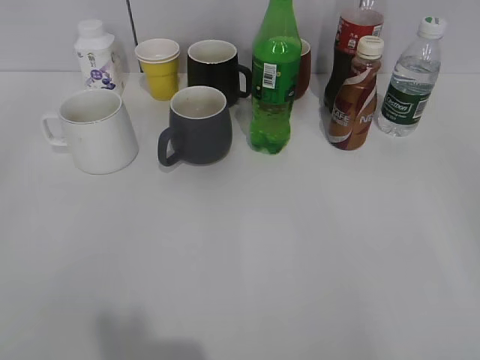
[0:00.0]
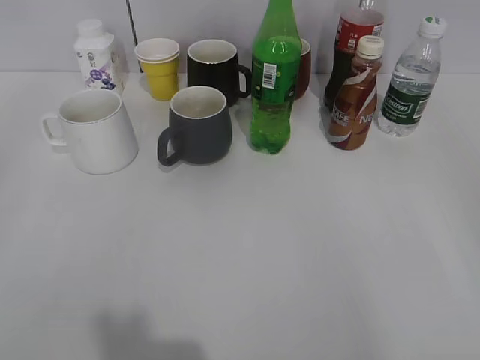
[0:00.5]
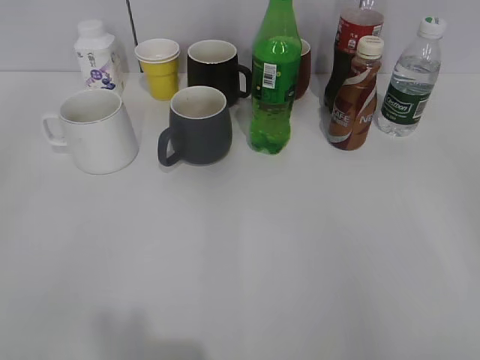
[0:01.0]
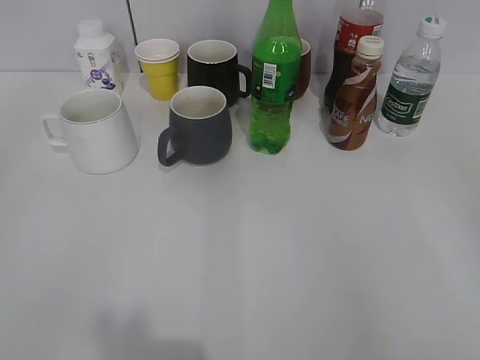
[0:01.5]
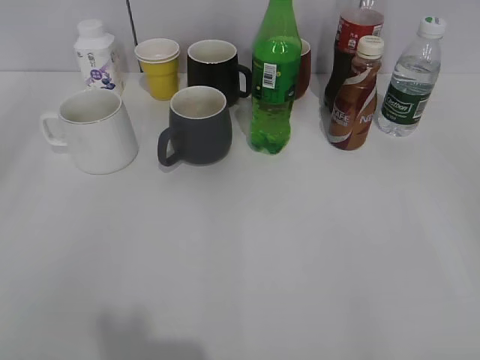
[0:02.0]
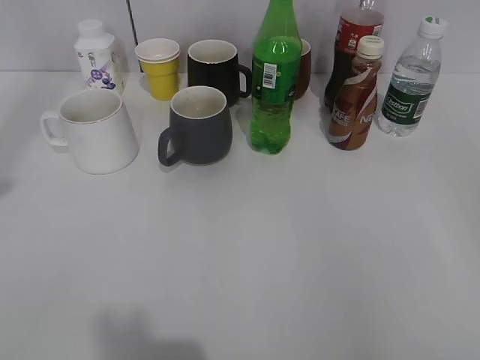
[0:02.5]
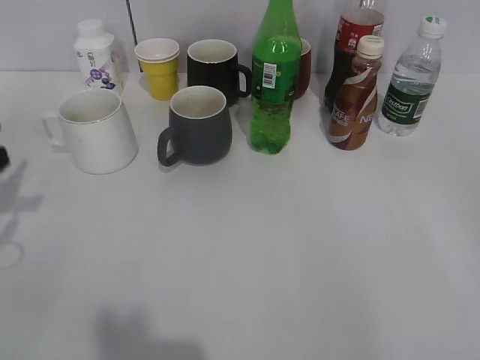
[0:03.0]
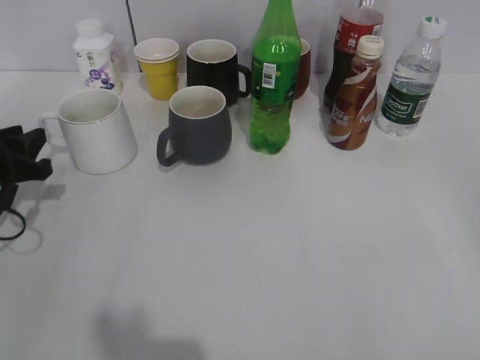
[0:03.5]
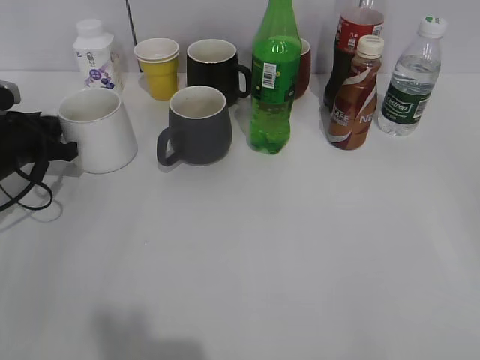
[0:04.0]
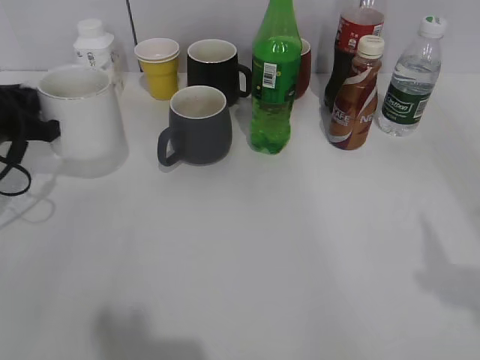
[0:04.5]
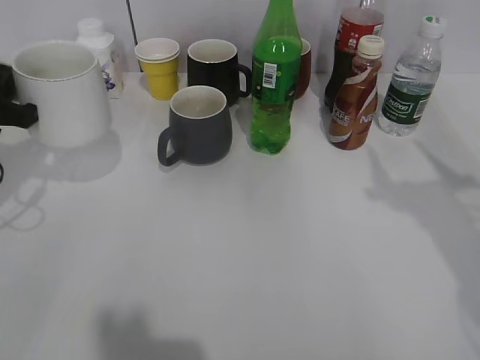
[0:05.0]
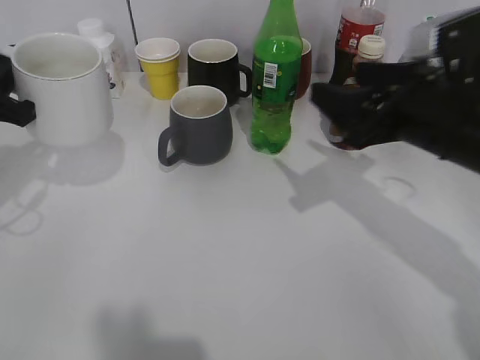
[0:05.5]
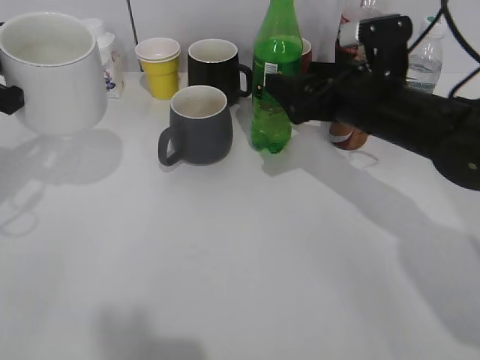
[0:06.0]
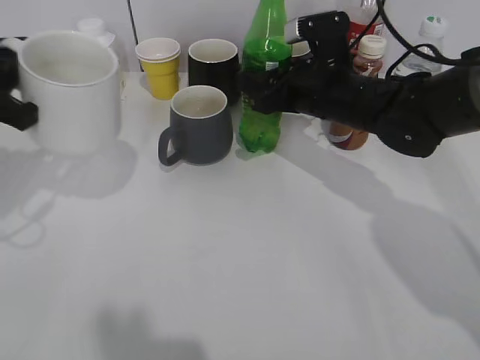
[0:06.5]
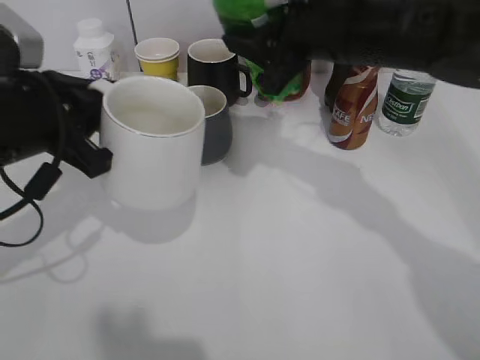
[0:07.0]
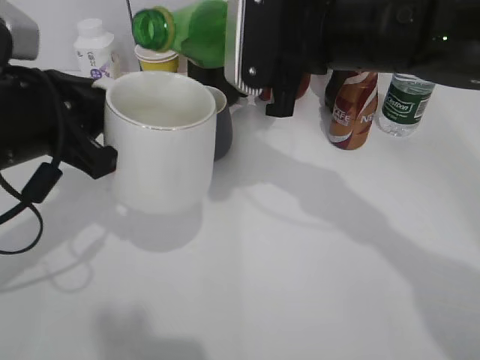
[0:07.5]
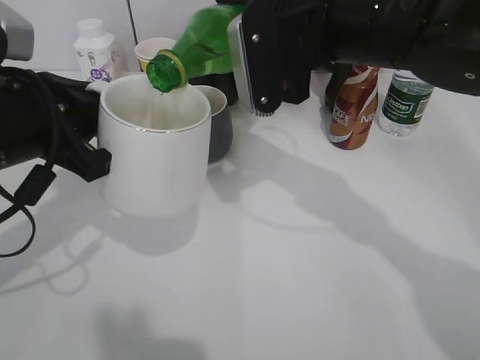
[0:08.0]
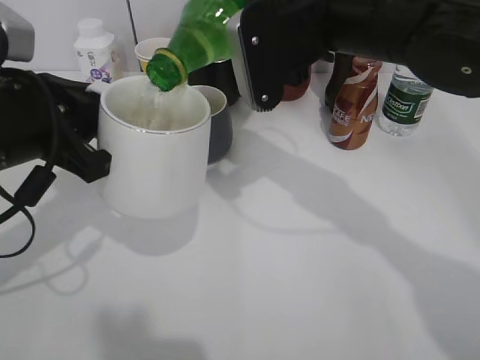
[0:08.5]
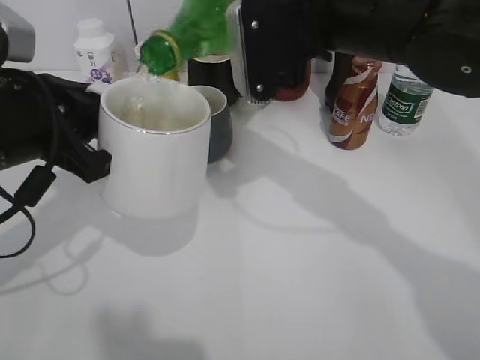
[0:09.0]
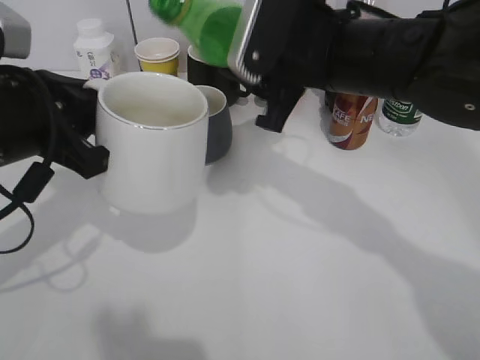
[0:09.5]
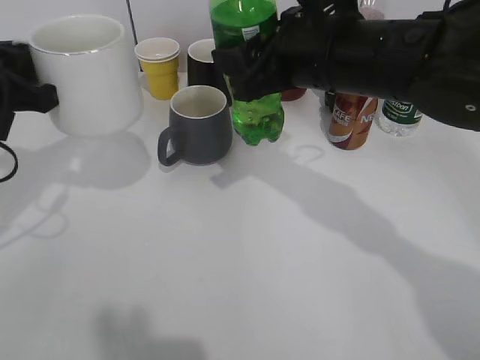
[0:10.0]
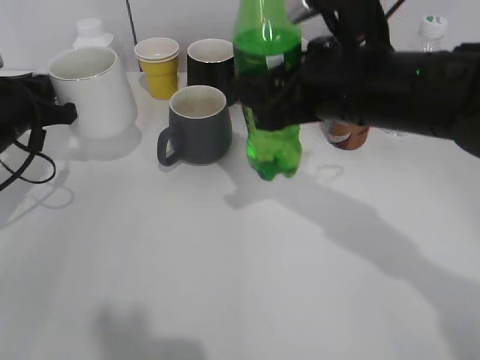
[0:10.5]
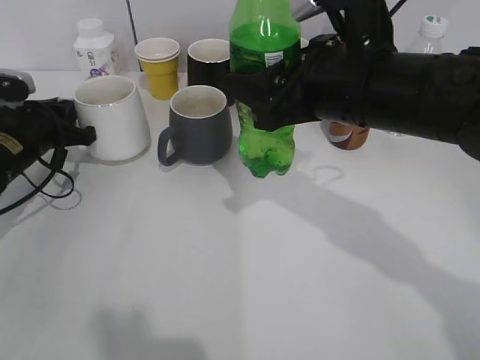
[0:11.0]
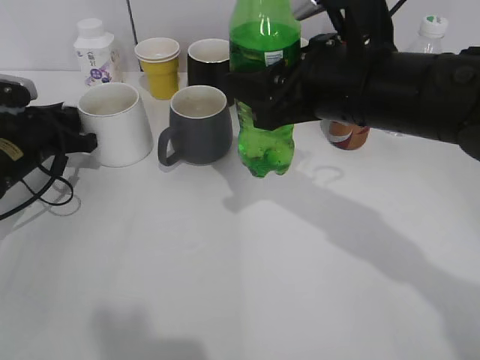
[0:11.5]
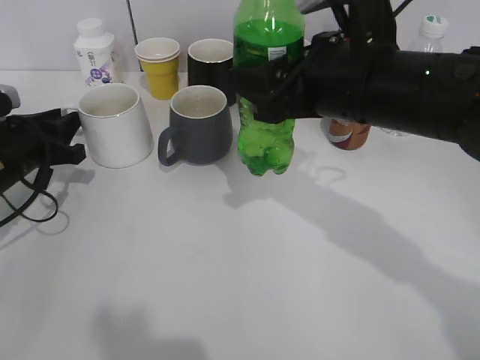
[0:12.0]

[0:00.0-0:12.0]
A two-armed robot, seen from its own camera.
Step, 0:02.0 to 0:04.0: Grasp the white cup with left gripper.
Step, 0:04.5 to 0:05.0: Lift the white cup with left gripper.
Step, 0:05.5 to 0:06.0: Grasp the bottle with sprite with right gripper.
Step, 0:07.0 to 0:09.0: Pour the sprite from bottle to cup with right gripper.
Step, 0:10.0 to 0:12.0: Place the white cup on the table with left gripper.
0:02.0 to 0:04.0: The left gripper shifts some 40 cm forward and downward.
0:04.0 to 0:06.0: The left gripper shifts approximately 15 cm upward and backward; the right gripper heads forward and to the left, covering roughly 35 cm.
0:06.0 to 0:08.0: The left gripper is displaced to the right and backward by about 10 cm; the right gripper goes approximately 10 cm upward and to the left, and closes.
0:08.0 to 0:10.0: The left gripper goes approximately 10 cm to the left and forward.
0:10.0 to 0:12.0: The left gripper moves downward and forward, approximately 15 cm, and opens.

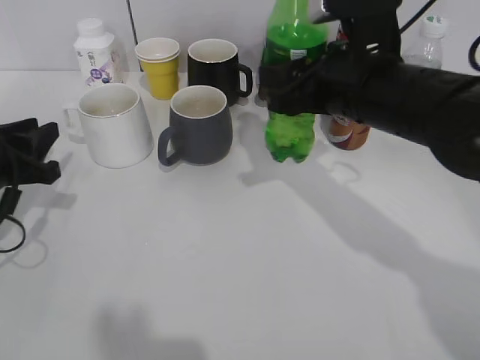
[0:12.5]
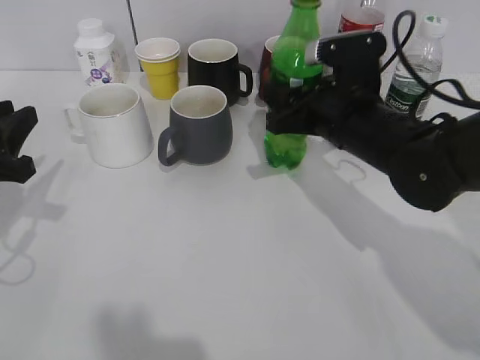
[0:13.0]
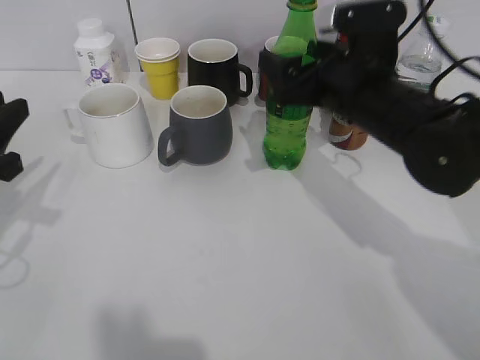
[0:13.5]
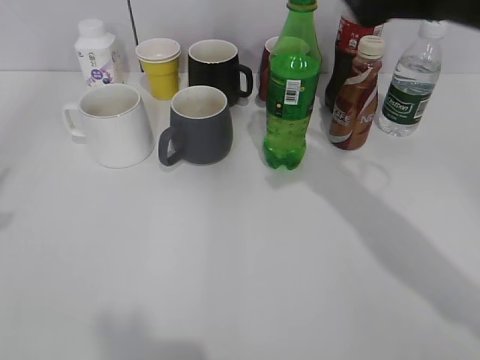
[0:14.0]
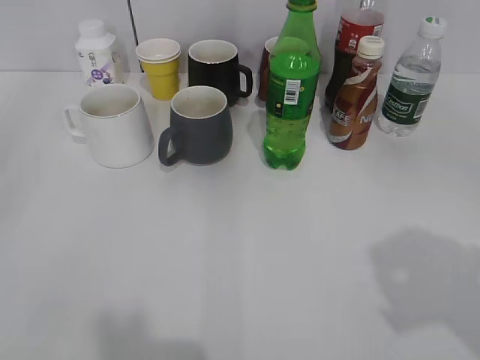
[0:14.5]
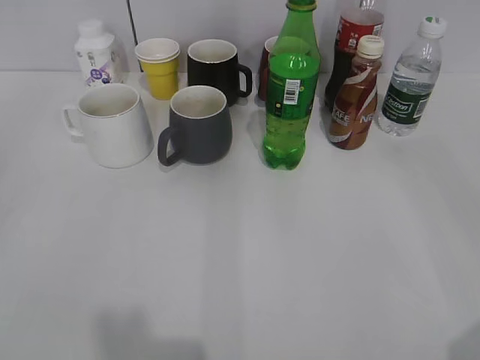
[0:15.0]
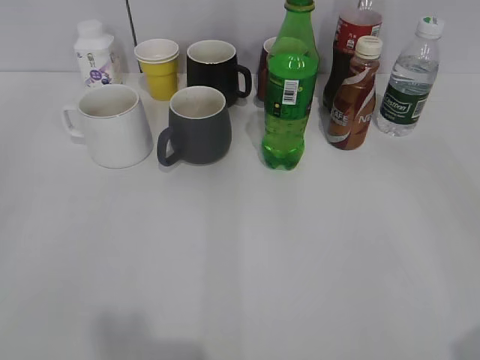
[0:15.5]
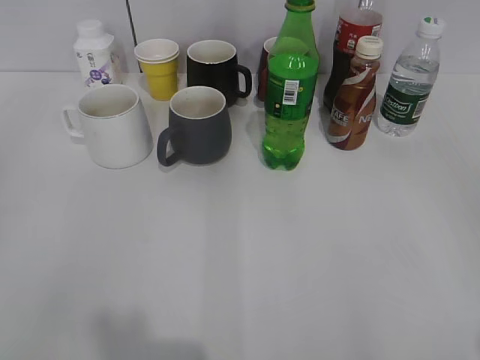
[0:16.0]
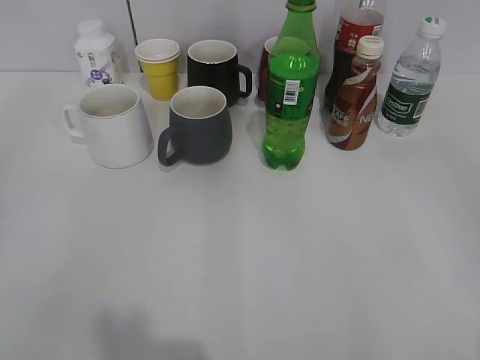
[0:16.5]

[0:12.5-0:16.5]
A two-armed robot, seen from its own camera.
Step, 0:12.5 to 0:13.5: Place the sprite bottle on the table with right gripper.
0:12.5 to 0:14.5: The left gripper moves backward and upward, approximately 30 cm, and opens its fingers; the right gripper moves backward, to the right and upward, about 25 cm, and opens its fingers.

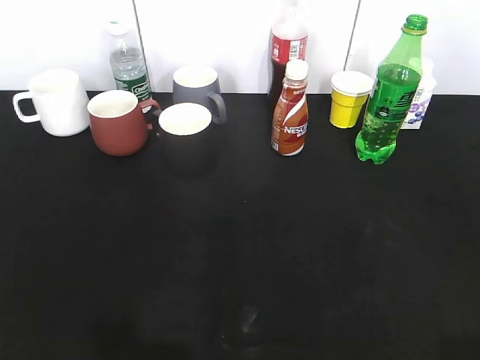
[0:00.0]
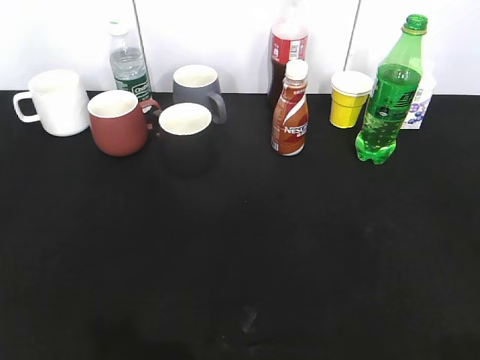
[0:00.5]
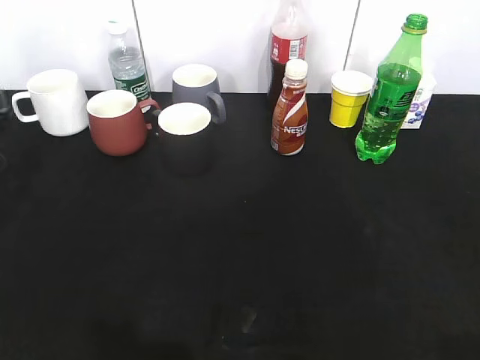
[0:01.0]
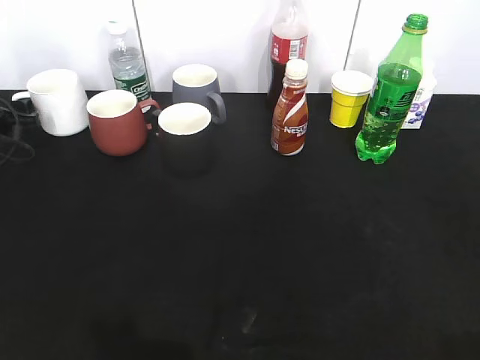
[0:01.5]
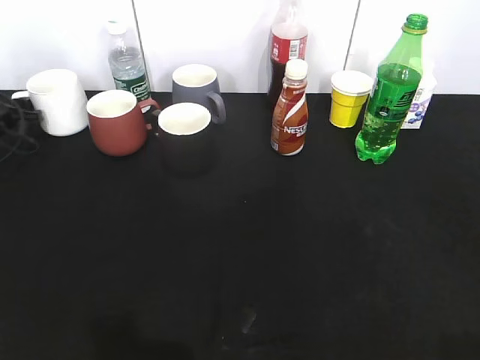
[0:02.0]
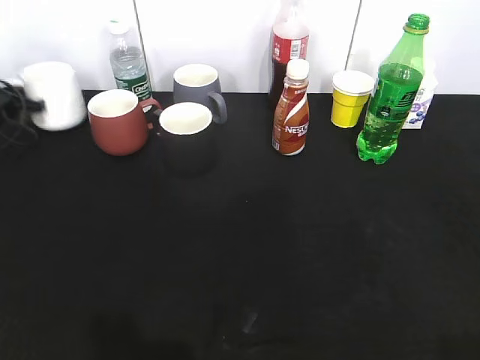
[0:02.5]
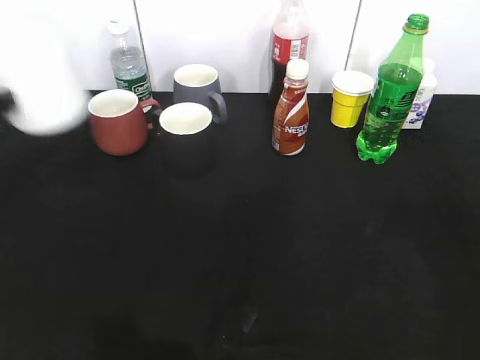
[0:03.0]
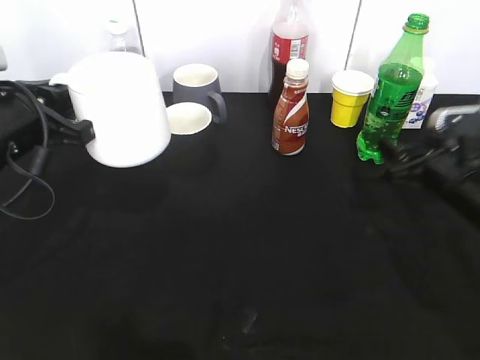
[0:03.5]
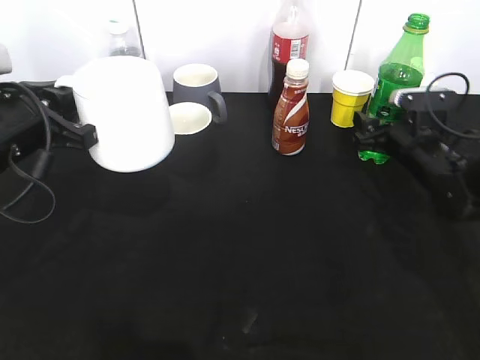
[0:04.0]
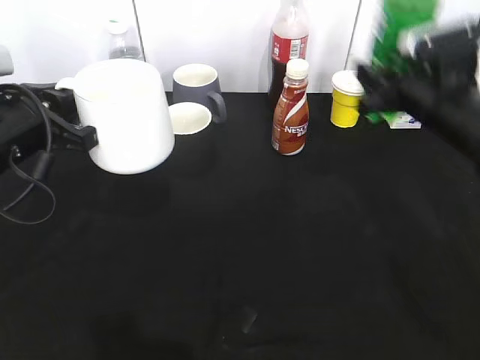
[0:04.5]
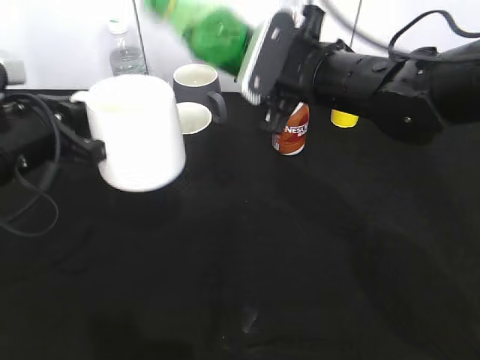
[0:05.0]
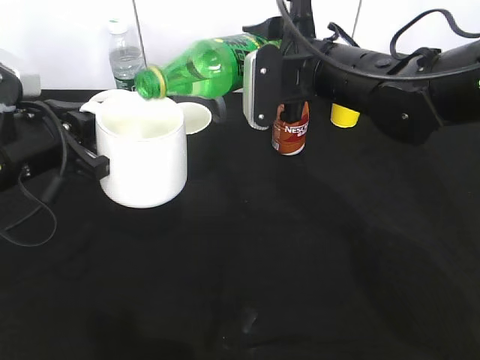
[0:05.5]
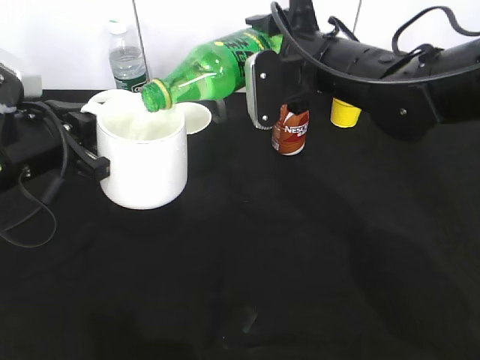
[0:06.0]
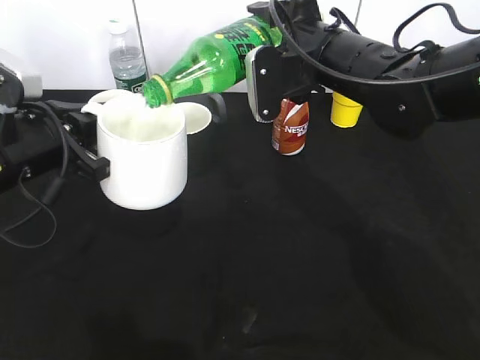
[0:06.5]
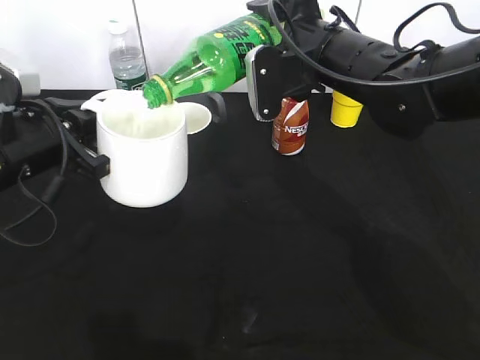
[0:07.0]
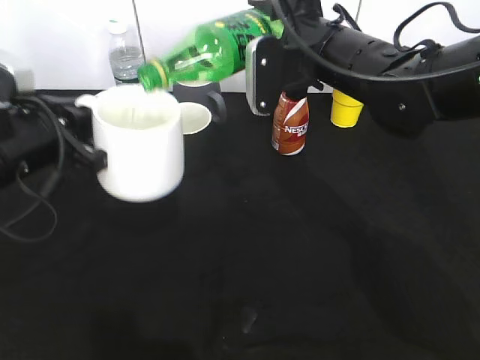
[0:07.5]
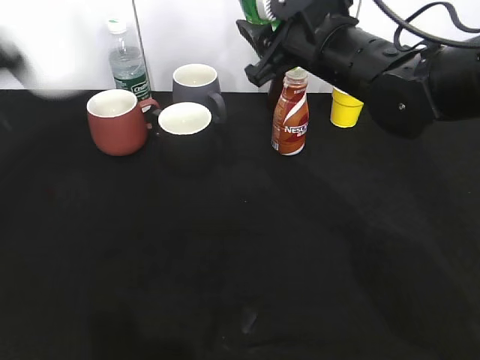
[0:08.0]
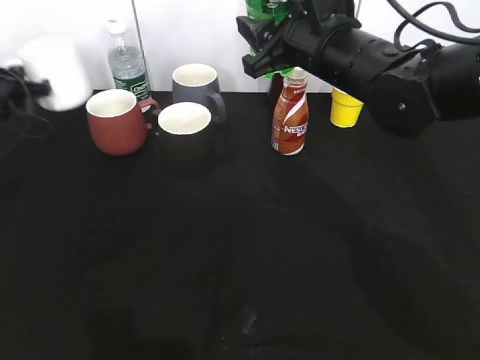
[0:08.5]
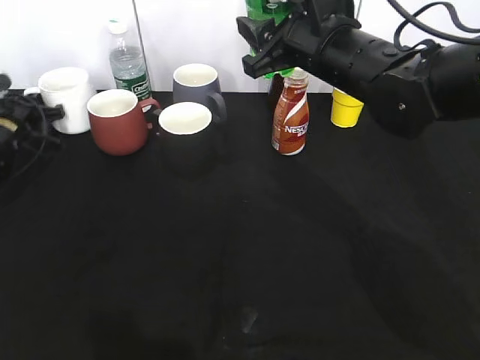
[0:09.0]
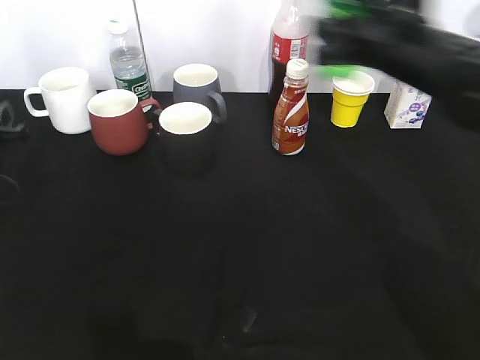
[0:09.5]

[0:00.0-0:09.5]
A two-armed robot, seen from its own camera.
Step, 0:00.0 to 0:02.0: Grasp the white cup with left gripper.
Step, 0:02.5 to 0:03.0: Lift the white cup with left gripper.
Step, 0:03.5 to 0:04.0: Grasp the bottle with sprite with right gripper.
Step, 0:04.5 to 0:07.5: Pour the sprite from bottle to cup with right gripper.
Step, 0:08.0 to 0:09.0: Place the white cup on the table with left gripper.
0:00.0 to 0:02.0: The left gripper goes roughly 50 cm forward and downward.
0:02.0 to 0:04.0: The left gripper moves backward, to the right and upward, some 30 cm, and closes. The right gripper goes approximately 50 cm forward and downward, and opens its fingers.
0:04.0 to 0:05.5: The right gripper shifts some 20 cm to the left and upward, and closes its fingers.
0:05.5 to 0:07.5: There are only small adjustments of the grippers.
0:07.5 to 0:09.5: The left gripper goes about 15 cm to the left and downward, moves about 20 cm forward and comes back, and opens up, while the right gripper goes roughly 10 cm to the right.
